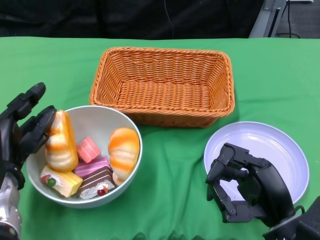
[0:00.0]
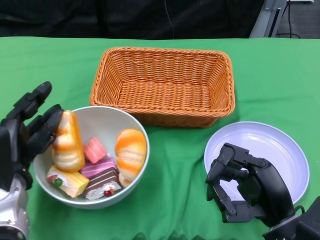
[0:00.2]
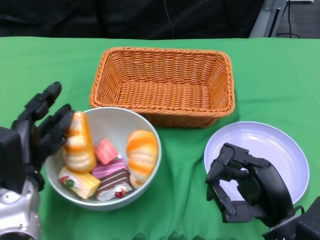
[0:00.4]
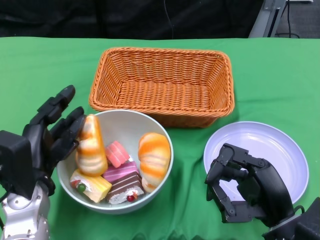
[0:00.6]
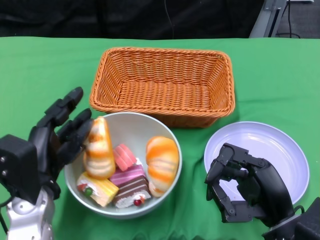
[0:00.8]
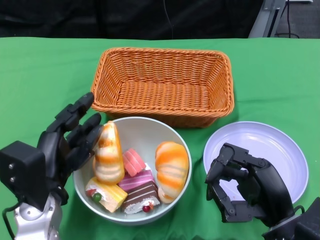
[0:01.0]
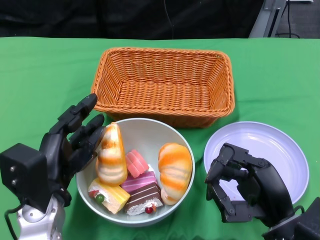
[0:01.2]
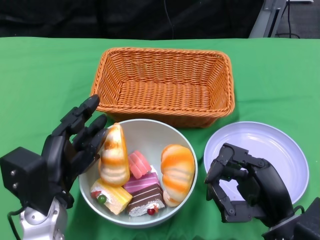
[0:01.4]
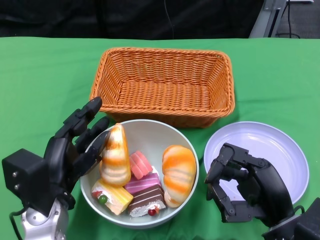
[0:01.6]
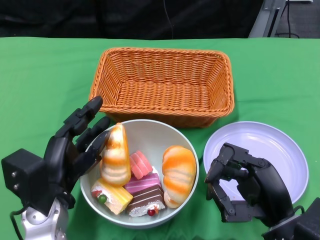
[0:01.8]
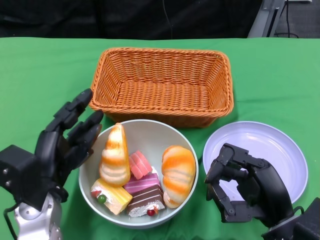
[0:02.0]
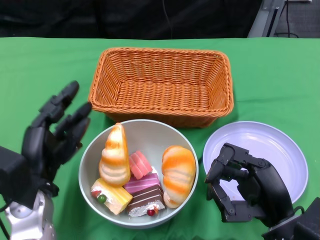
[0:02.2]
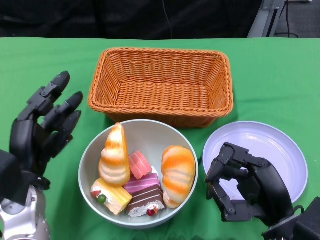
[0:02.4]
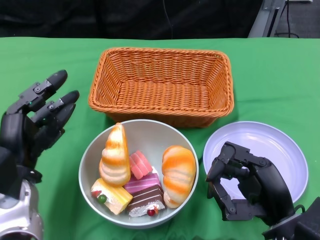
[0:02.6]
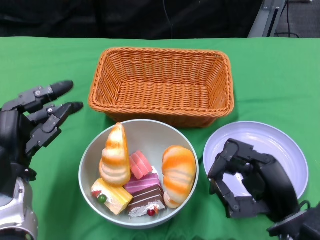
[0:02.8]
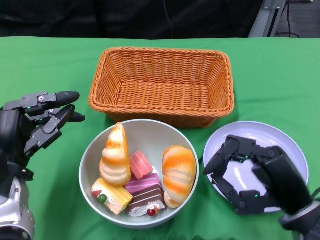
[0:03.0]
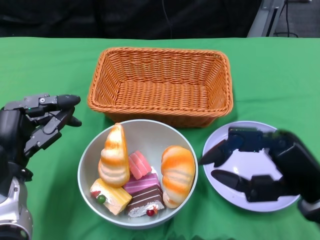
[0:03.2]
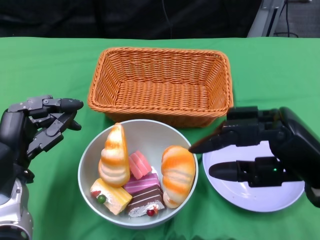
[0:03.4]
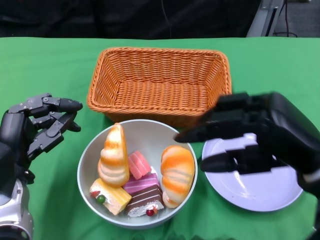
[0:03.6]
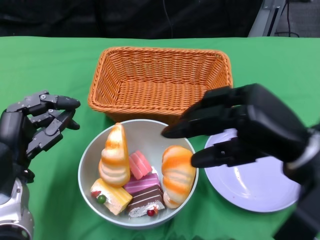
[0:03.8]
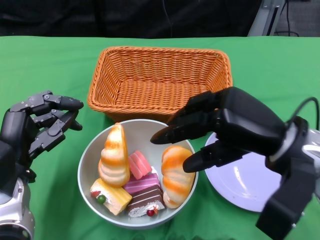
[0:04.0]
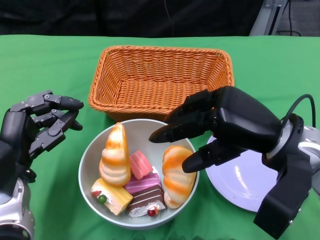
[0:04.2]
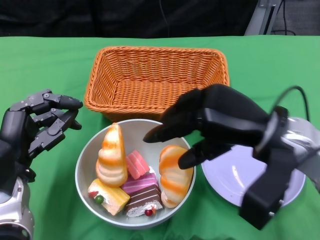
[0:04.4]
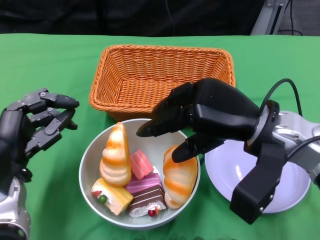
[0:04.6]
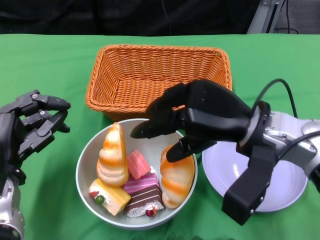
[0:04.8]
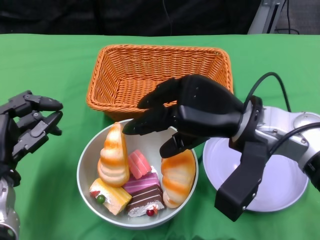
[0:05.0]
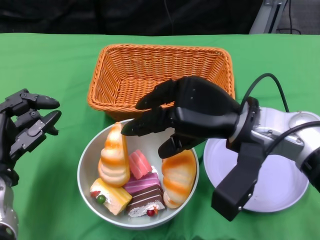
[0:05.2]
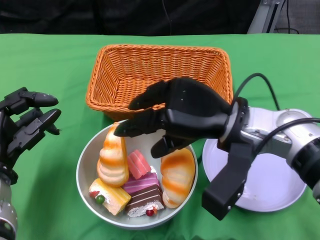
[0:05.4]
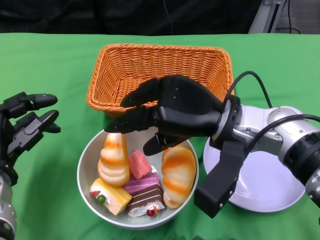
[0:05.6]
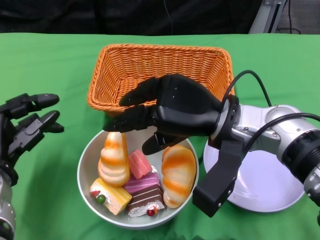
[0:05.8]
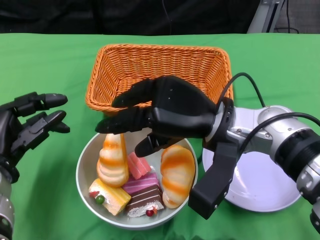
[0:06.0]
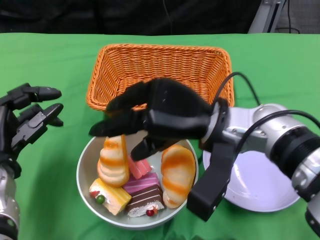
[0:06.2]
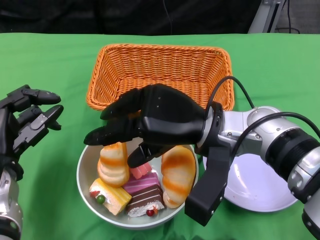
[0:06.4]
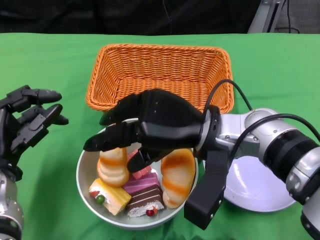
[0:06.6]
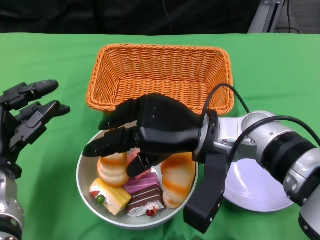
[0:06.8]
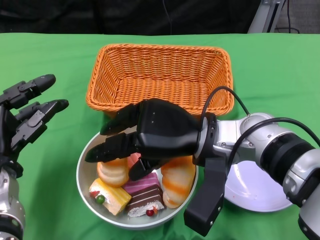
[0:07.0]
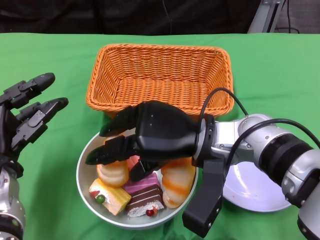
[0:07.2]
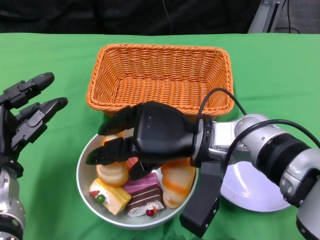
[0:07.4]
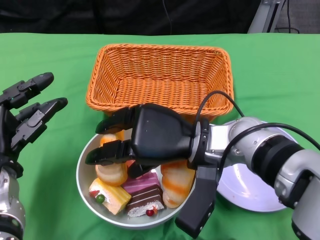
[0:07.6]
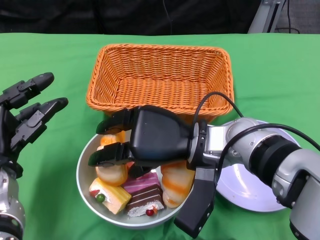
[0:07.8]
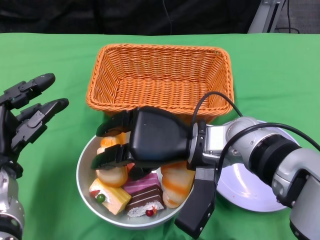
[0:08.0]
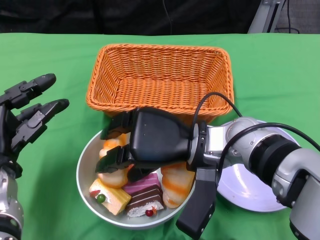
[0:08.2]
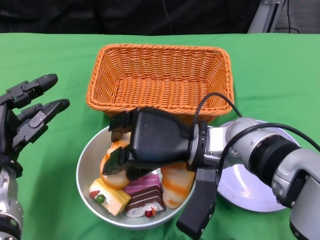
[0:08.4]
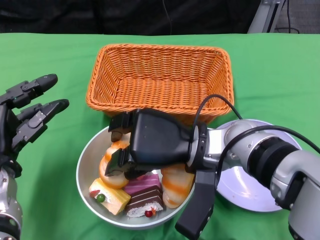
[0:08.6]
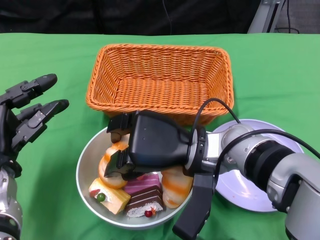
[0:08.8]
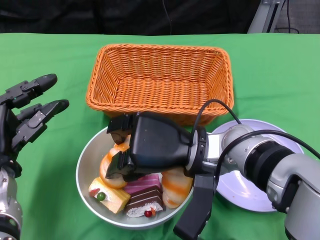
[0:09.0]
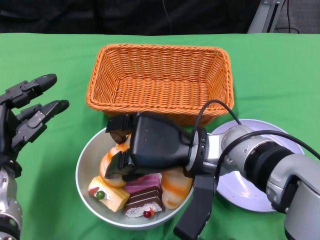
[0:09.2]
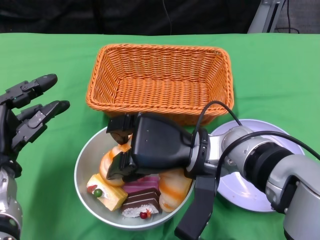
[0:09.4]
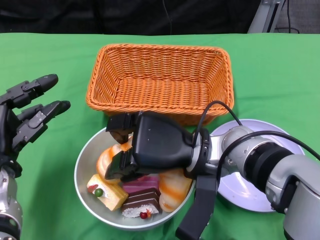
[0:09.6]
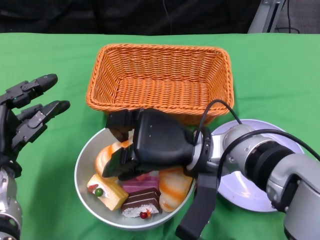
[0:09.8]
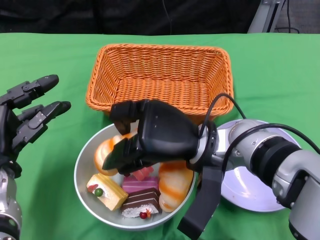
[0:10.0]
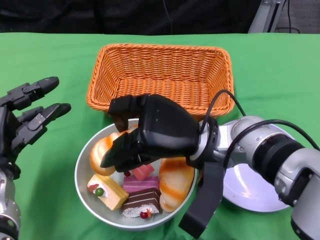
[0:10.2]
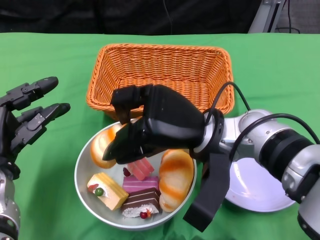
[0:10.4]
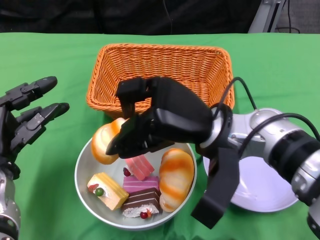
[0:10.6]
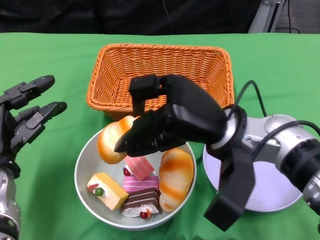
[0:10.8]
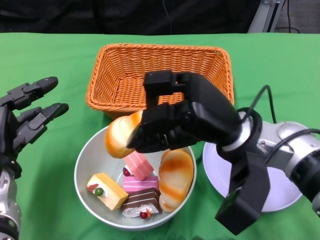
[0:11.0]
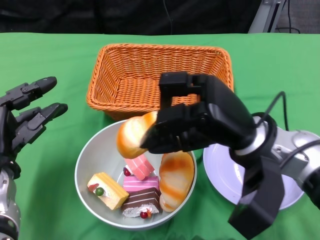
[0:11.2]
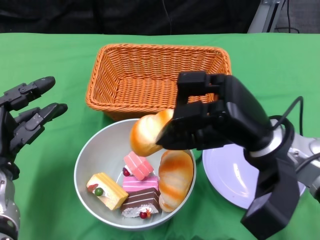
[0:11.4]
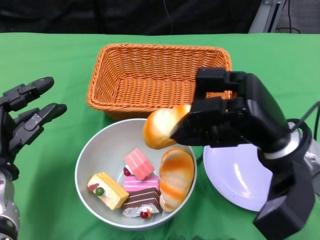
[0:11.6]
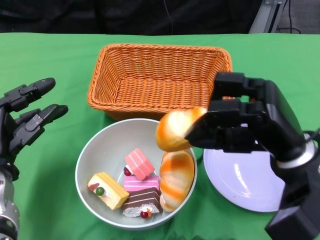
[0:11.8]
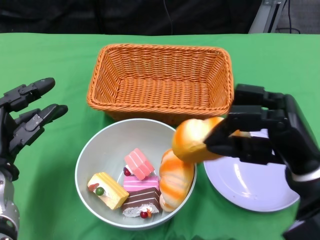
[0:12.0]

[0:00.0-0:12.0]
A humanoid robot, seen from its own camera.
Step, 0:00.0 to 0:02.0: Push the bowl to the center of the table using the left gripper.
0:00.0 to 0:01.6: The left hand goes approximately 5 cm to the right.
0:01.6 to 0:03.0: The left hand travels to the left by about 5 cm.
0:03.0 to 0:04.4: The right hand goes approximately 10 cm forward and upward.
0:04.4 to 0:06.0: The right hand shifts roughly 5 cm to the left.
0:07.6 to 0:09.0: The hands stay close to where they were, moving slightly.
0:10.4 to 0:12.0: The right hand travels to the right by approximately 10 cm.

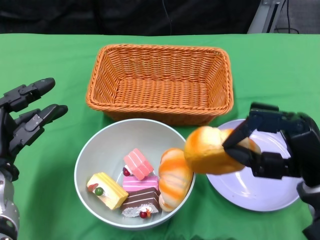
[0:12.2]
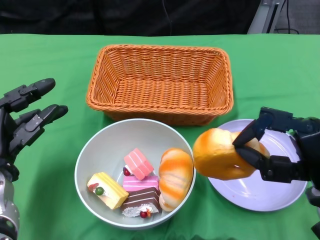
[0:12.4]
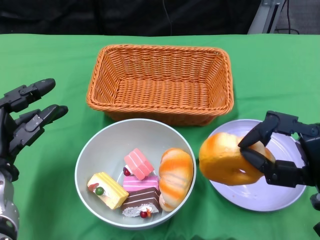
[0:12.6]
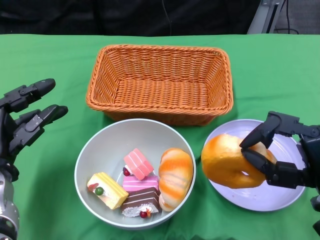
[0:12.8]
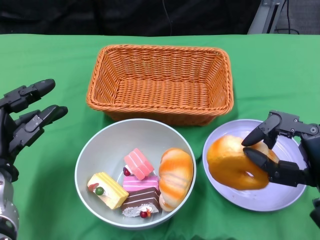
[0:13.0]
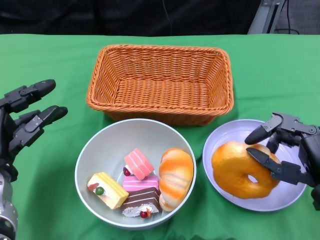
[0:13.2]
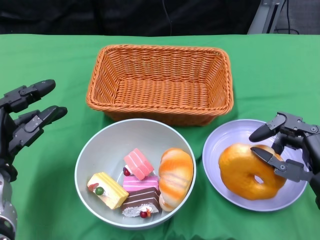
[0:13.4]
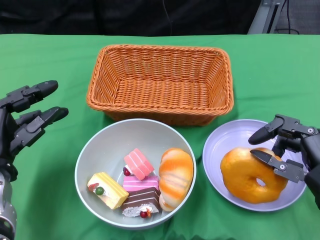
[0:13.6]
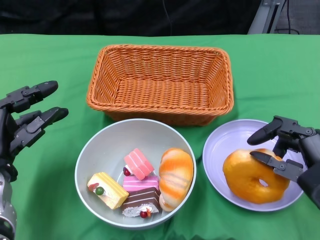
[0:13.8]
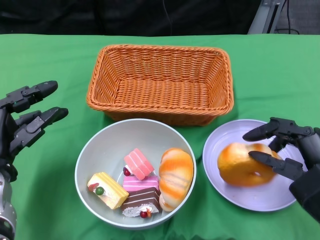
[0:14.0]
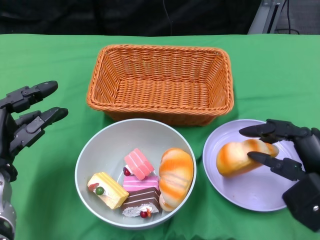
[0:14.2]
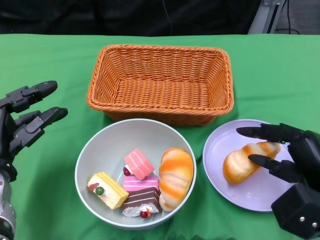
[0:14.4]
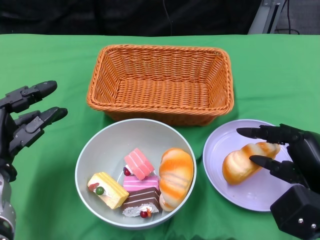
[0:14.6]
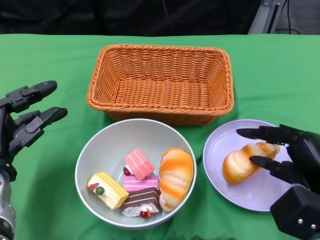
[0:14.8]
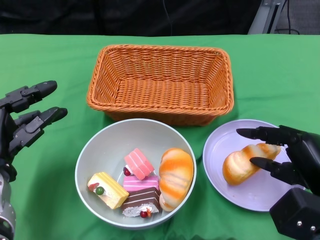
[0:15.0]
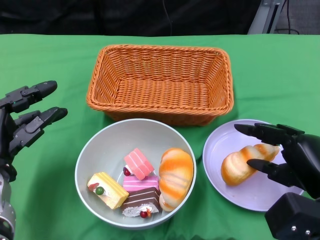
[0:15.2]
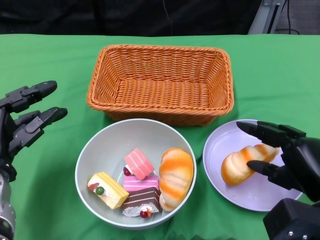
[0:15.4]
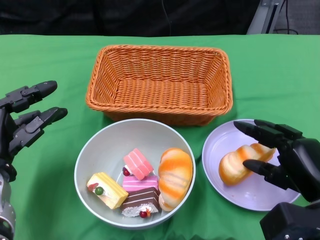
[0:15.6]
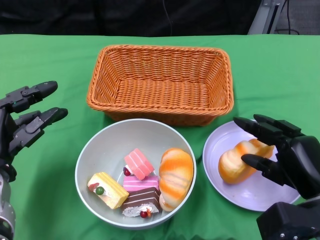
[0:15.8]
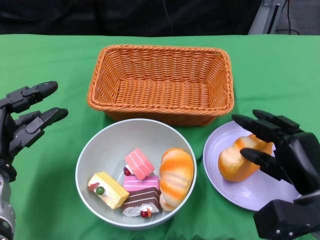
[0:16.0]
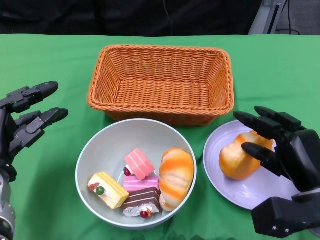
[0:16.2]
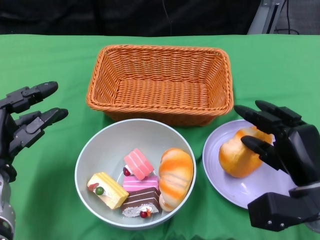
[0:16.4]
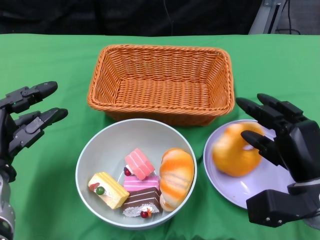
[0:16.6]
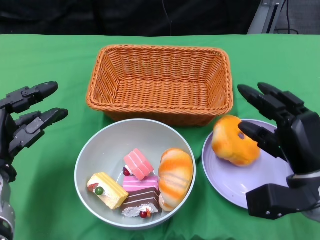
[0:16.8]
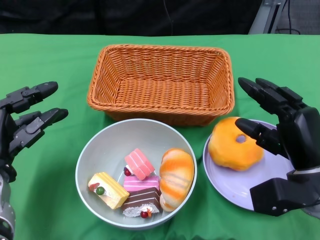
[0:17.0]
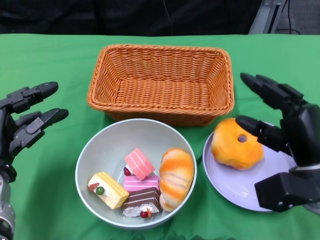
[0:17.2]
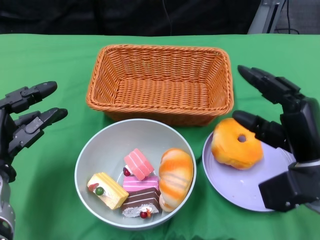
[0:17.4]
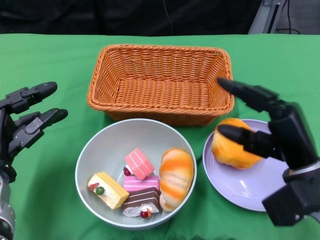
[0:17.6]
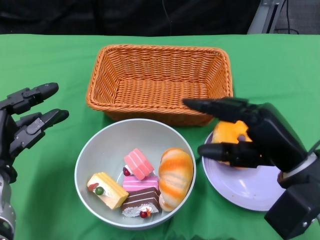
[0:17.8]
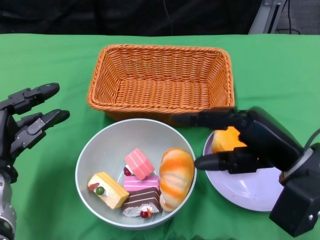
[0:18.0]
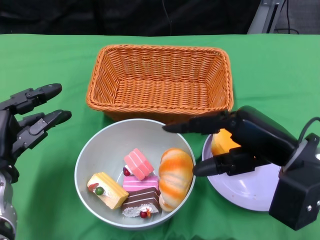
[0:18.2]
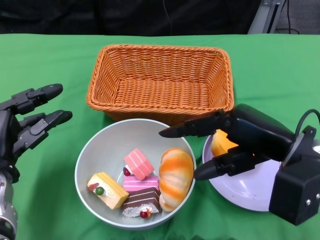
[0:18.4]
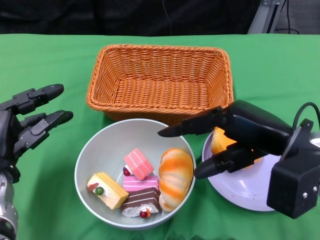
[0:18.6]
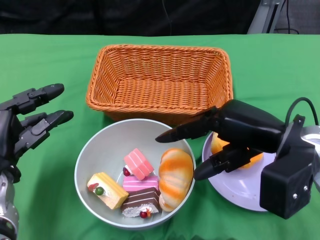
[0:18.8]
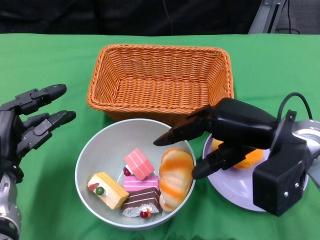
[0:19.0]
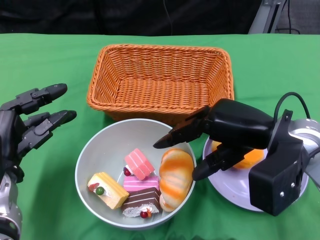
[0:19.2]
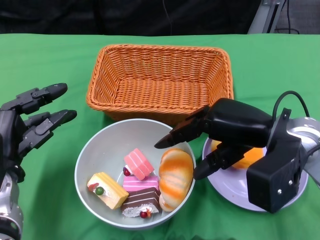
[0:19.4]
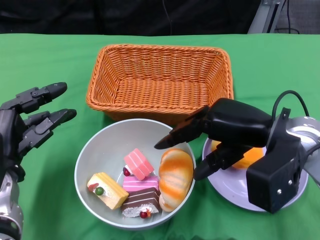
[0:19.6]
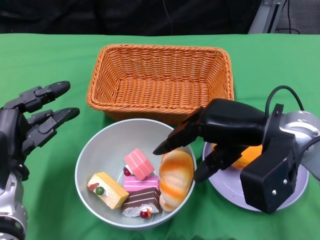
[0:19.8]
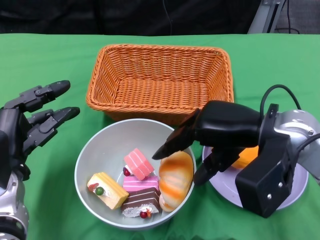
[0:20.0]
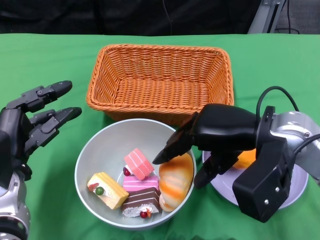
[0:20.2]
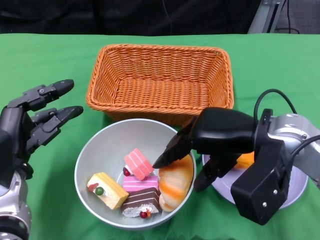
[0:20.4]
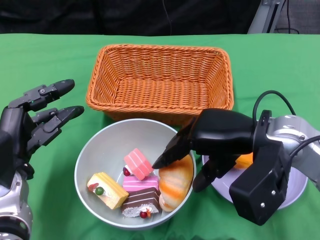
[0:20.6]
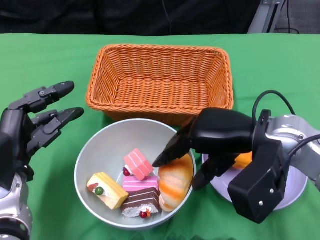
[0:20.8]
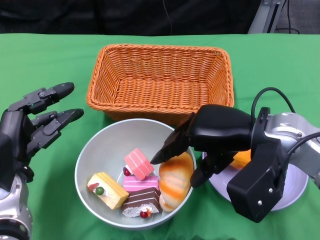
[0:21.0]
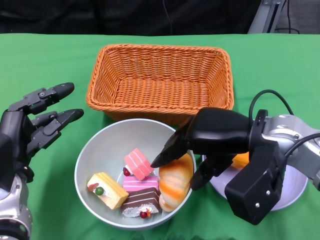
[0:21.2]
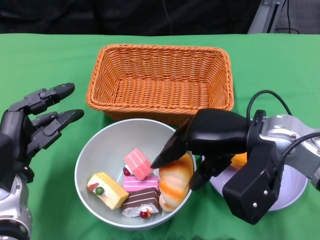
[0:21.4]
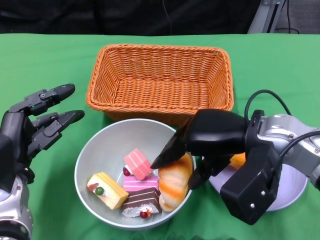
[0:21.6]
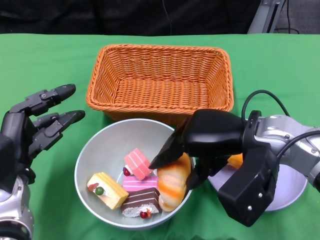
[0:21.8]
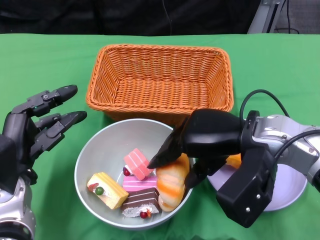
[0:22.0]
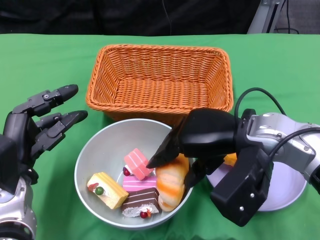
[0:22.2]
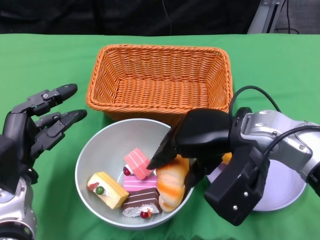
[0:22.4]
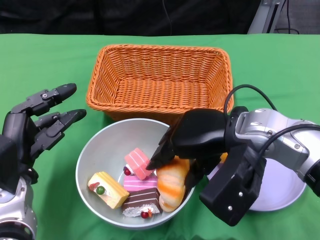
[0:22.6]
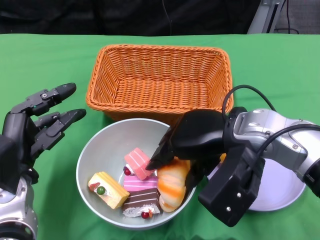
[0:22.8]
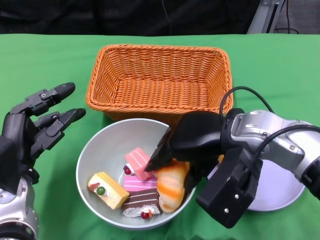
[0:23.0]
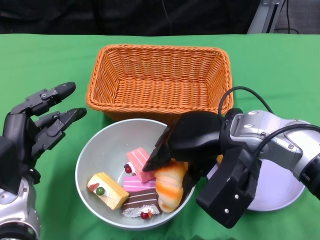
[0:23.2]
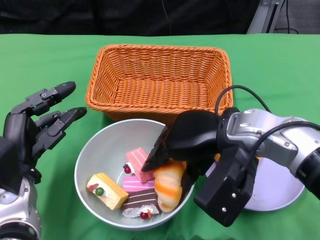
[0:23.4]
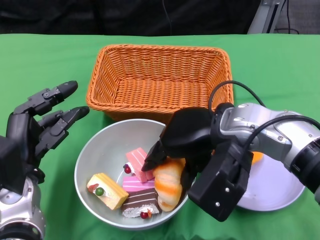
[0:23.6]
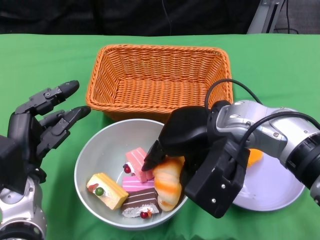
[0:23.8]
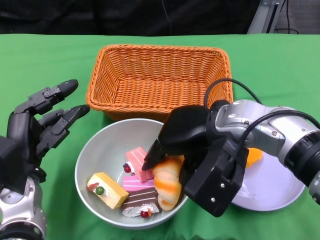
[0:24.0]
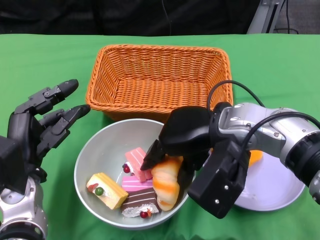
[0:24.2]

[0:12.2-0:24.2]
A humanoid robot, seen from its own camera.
Step, 0:12.2 to 0:16.8: Pick up the bread with the right gripper and place it on the plate.
0:15.2 to 0:16.6: The right hand ends up about 5 cm from where it was.
0:16.6 to 0:18.2: The right hand is displaced upward by approximately 10 cm.
0:19.8 to 0:21.2: There are only small adjustments of the hands.
0:21.2 to 0:22.6: The hands make only small movements.
